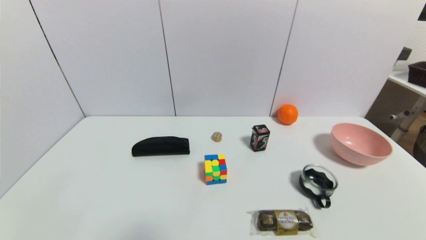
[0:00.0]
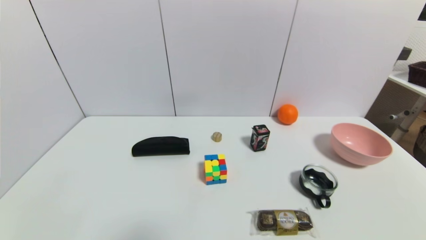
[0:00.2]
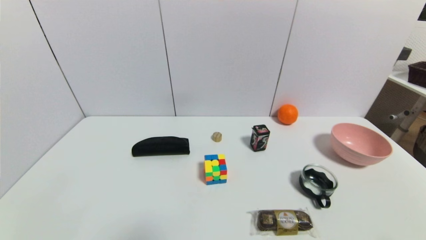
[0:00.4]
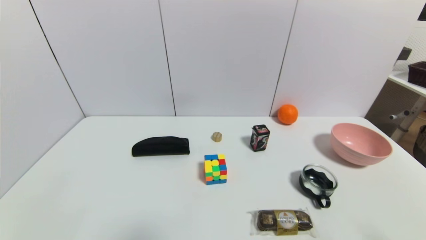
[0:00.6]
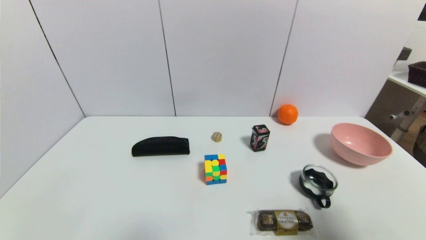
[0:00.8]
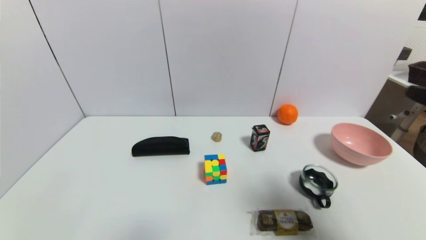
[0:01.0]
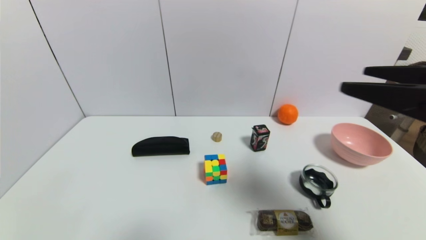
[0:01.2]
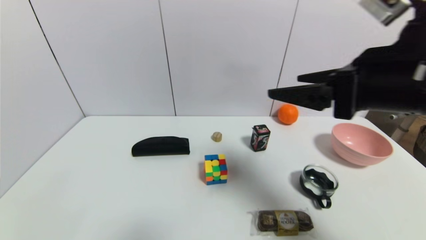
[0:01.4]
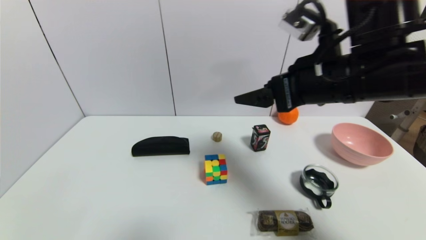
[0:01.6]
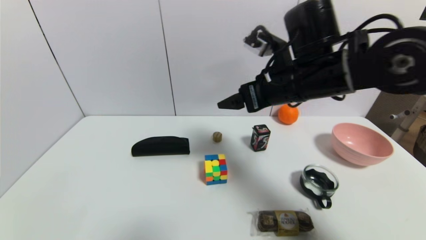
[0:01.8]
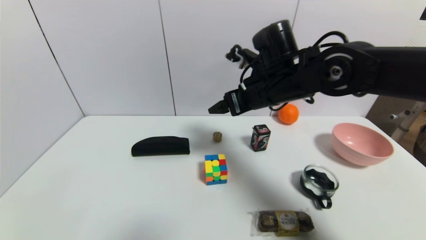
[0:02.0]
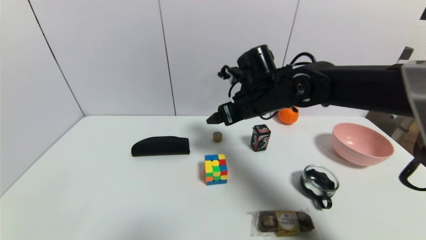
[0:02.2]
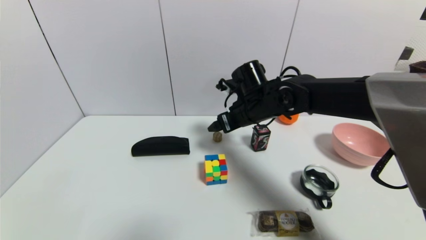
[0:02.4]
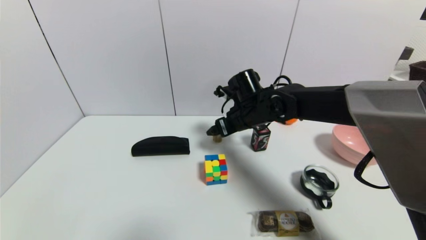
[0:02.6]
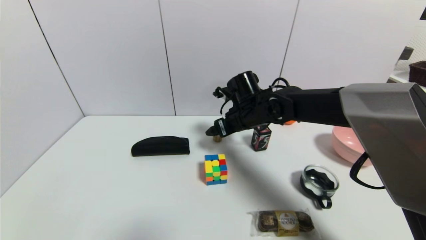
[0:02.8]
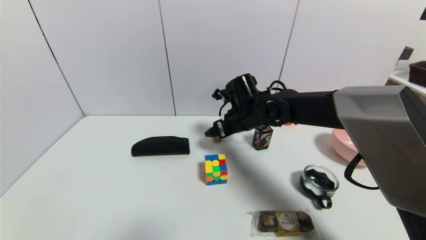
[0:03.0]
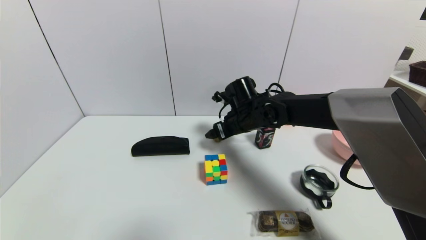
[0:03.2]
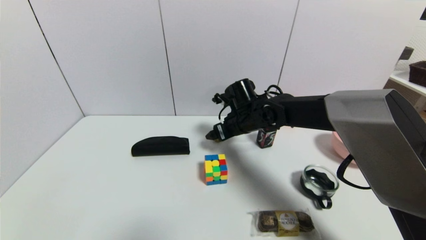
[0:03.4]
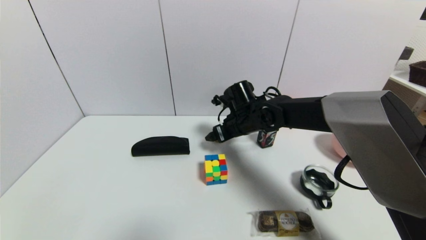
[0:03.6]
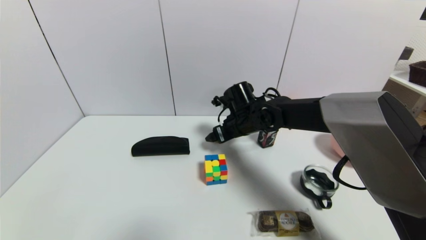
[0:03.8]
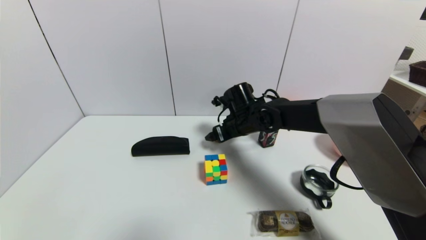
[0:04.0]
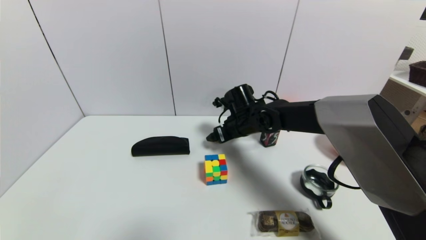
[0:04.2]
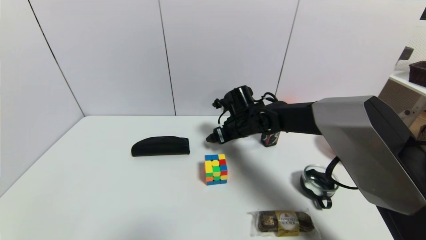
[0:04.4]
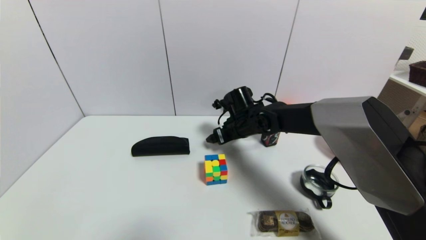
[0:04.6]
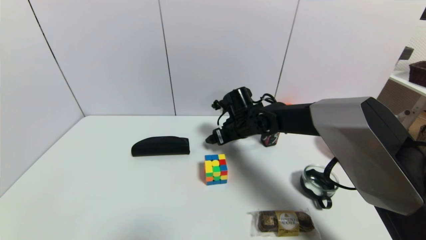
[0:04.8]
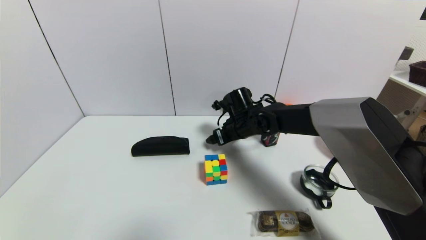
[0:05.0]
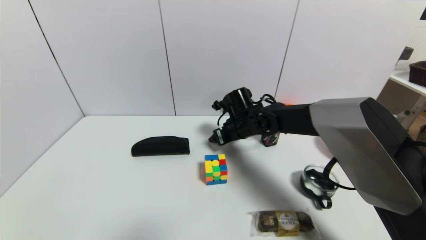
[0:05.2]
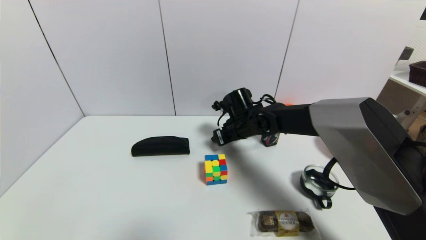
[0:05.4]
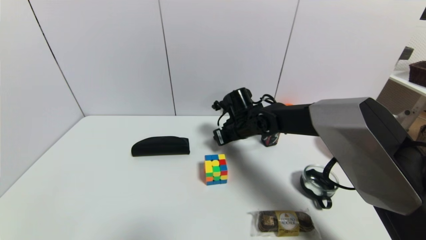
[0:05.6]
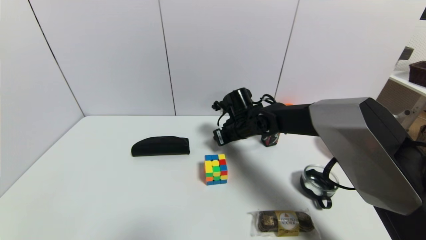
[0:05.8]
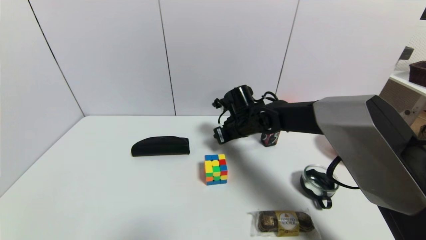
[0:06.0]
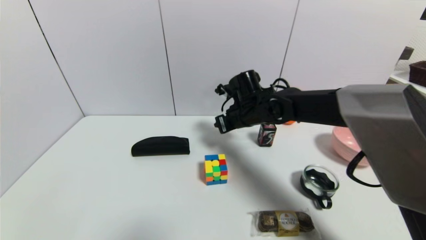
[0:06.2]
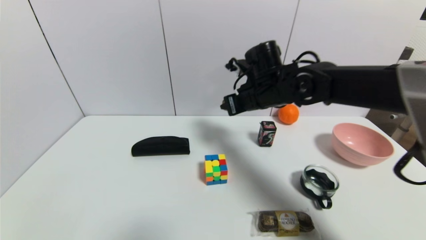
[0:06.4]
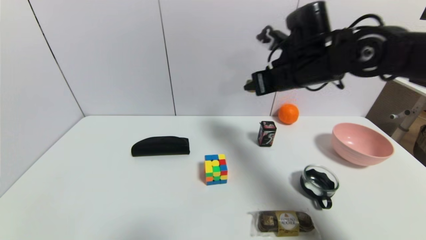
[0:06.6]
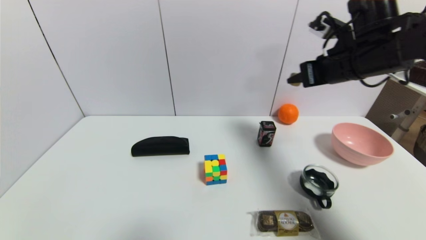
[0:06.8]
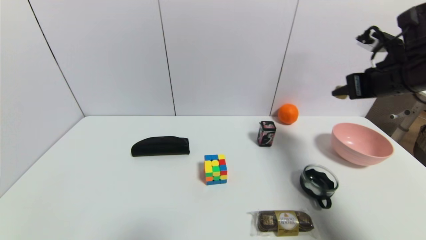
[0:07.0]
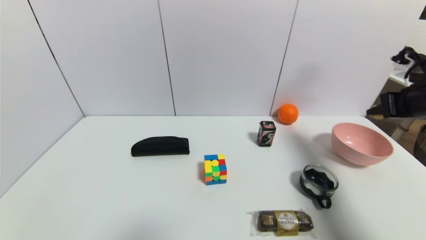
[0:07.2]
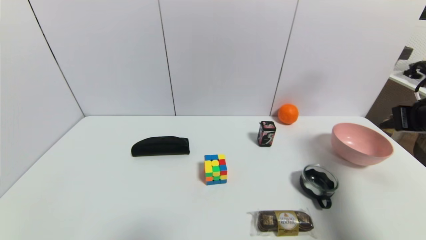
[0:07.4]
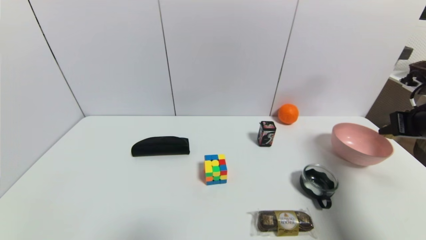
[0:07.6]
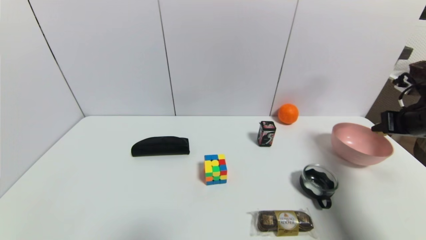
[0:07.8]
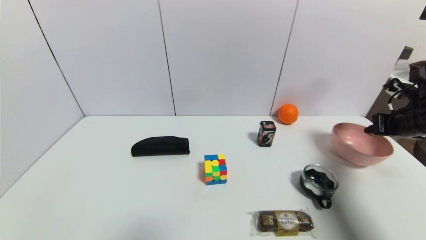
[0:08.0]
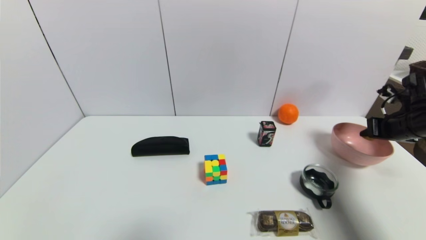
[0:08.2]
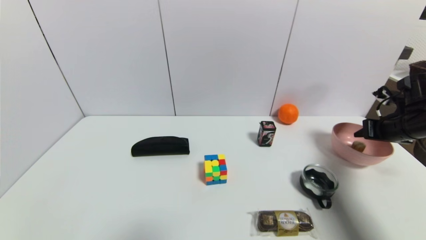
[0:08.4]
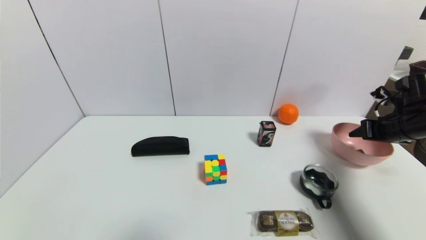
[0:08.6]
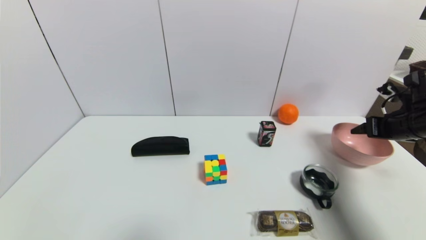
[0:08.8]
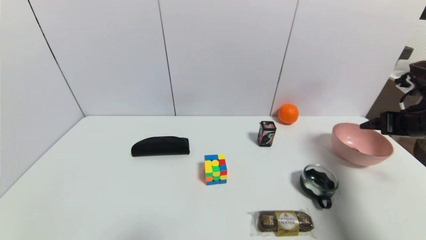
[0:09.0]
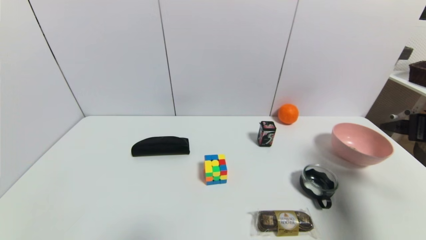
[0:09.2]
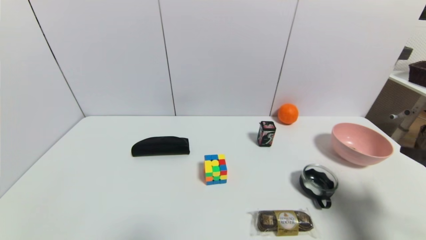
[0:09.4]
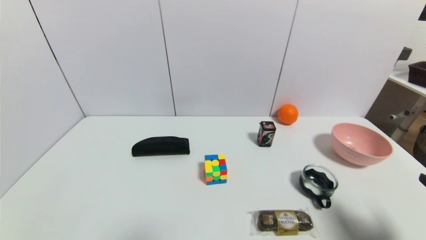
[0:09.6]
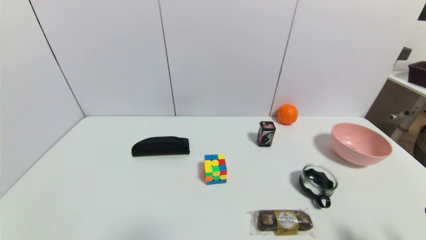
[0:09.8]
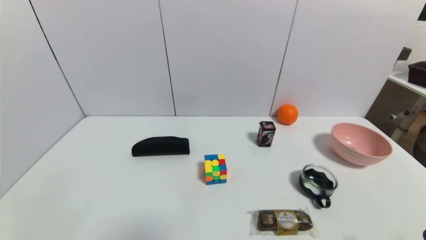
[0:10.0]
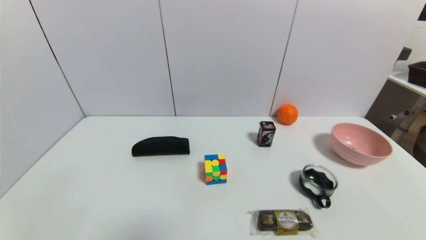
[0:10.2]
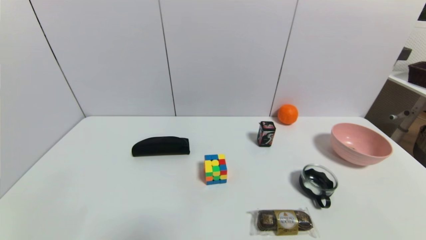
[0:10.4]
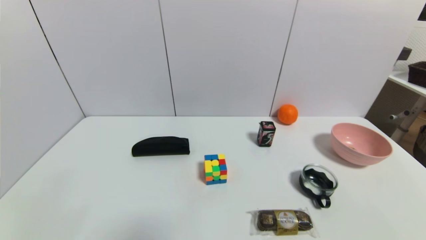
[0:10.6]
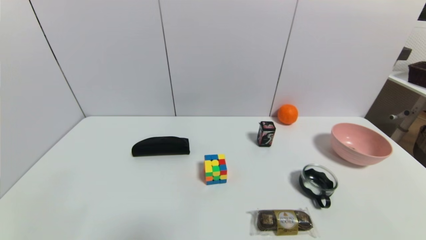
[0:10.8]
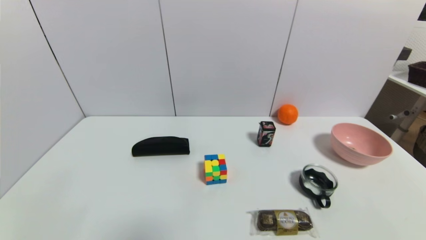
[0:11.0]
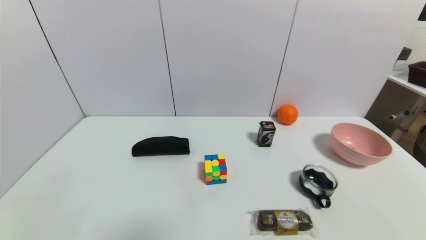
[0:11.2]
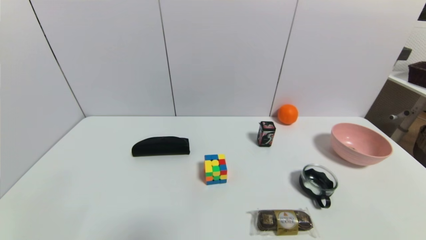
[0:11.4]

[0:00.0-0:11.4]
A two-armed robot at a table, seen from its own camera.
Task of the whole recording: use a gripper to pick the target object and place on the pink bowl.
Step, 0:00.0 to 0:05.6: Grasp the round wooden block with the right gripper.
Step, 0:05.8 to 0:08.4: Place the round wooden block on the pink bowl with the right gripper.
0:00.0 to 0:01.4: The right gripper travels upward, forward and to the left by approximately 35 cm.
0:01.4 to 0:02.8: The right gripper goes approximately 25 cm forward, downward and to the left.
0:02.8 to 0:04.2: The grippers make only small movements.
0:04.2 to 0:05.6: The right gripper closes its fingers.
0:05.6 to 0:07.2: The right gripper goes roughly 35 cm to the right, backward and upward.
0:07.2 to 0:08.6: The right gripper travels downward and forward by some 10 cm, and opens.
0:08.6 to 0:10.0: The right gripper moves backward, approximately 30 cm, and opens its fingers.
